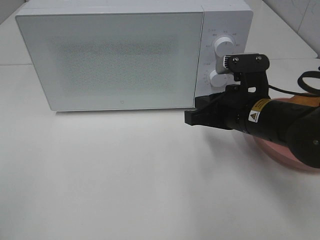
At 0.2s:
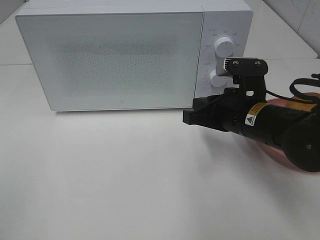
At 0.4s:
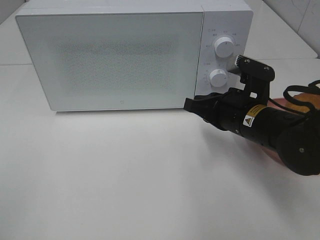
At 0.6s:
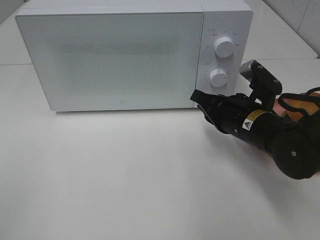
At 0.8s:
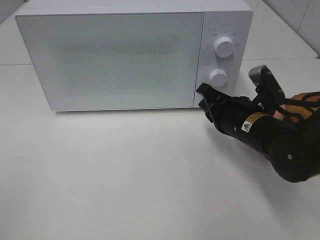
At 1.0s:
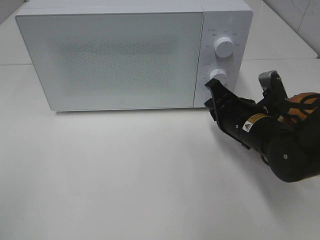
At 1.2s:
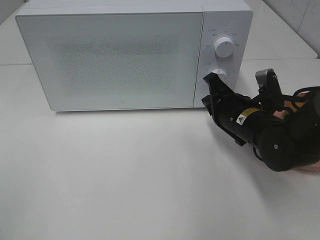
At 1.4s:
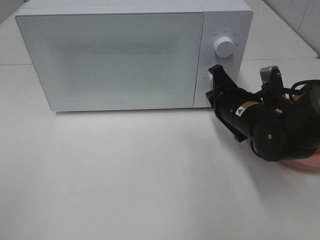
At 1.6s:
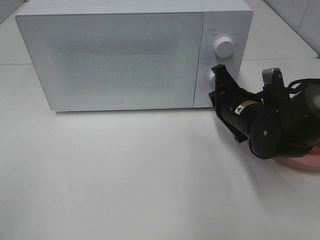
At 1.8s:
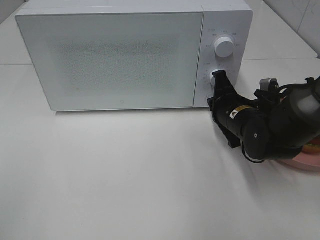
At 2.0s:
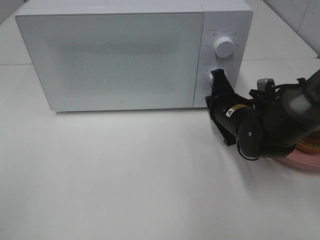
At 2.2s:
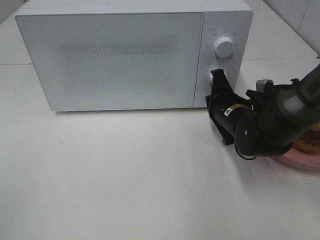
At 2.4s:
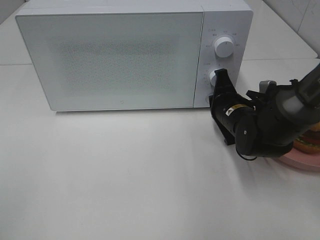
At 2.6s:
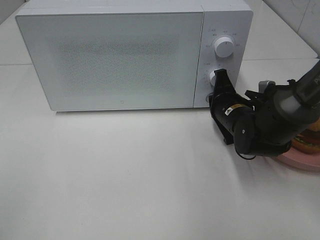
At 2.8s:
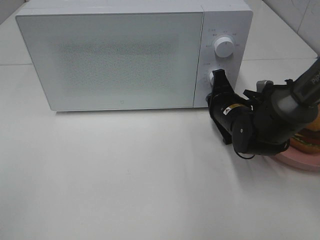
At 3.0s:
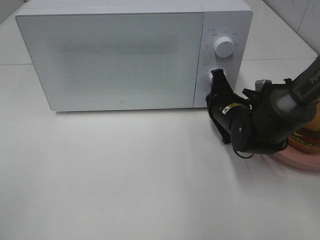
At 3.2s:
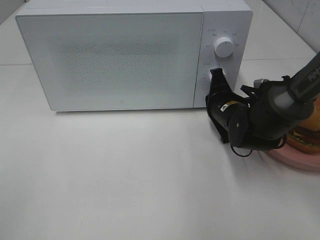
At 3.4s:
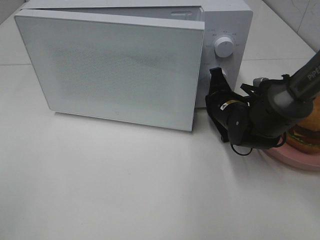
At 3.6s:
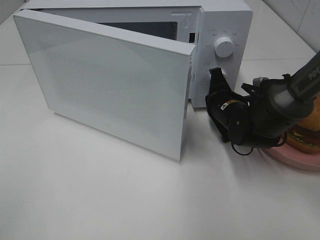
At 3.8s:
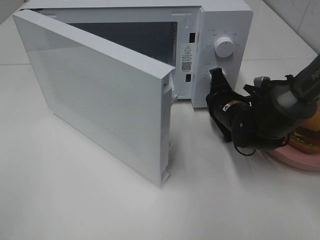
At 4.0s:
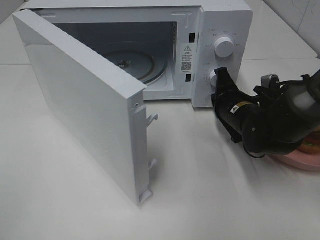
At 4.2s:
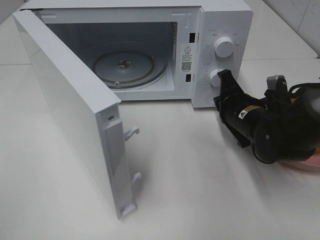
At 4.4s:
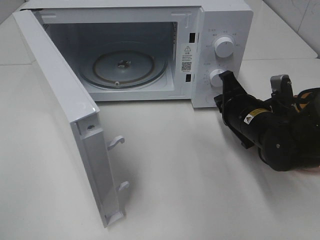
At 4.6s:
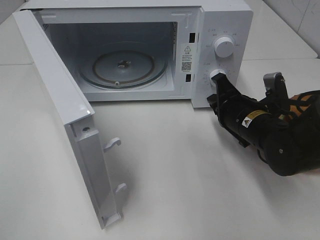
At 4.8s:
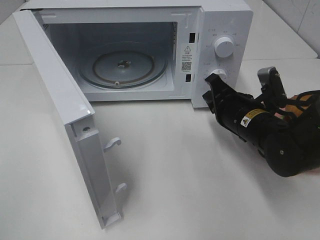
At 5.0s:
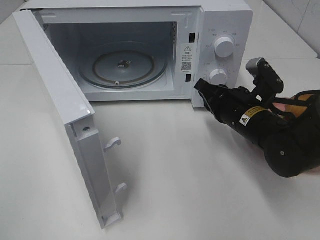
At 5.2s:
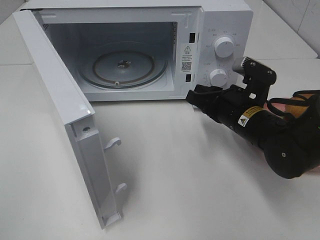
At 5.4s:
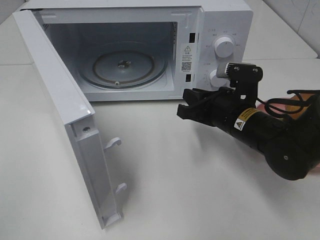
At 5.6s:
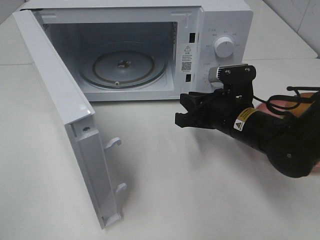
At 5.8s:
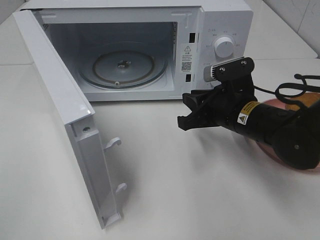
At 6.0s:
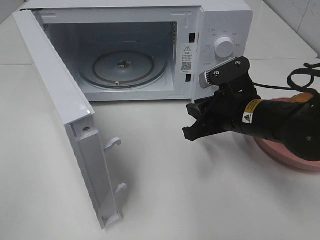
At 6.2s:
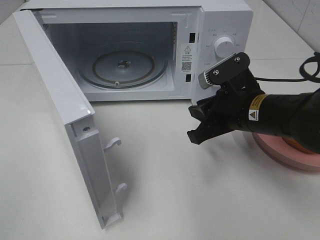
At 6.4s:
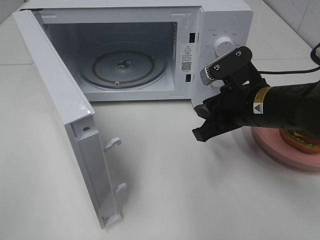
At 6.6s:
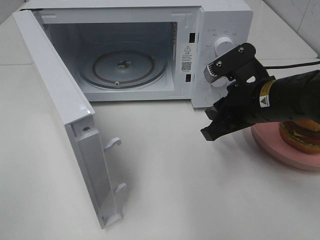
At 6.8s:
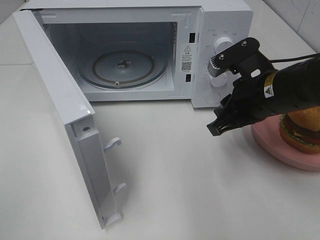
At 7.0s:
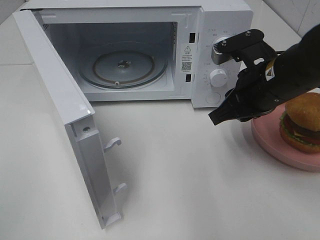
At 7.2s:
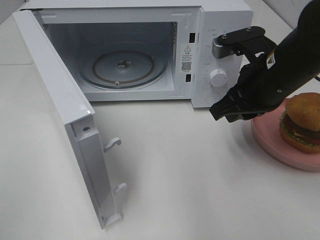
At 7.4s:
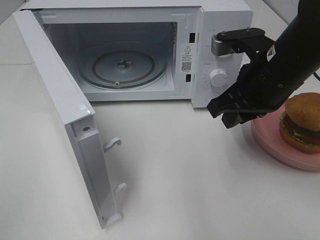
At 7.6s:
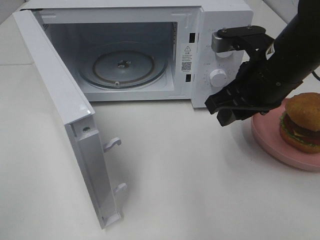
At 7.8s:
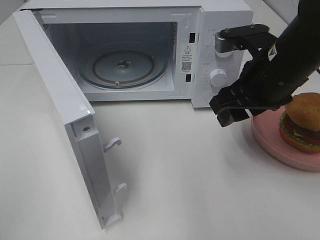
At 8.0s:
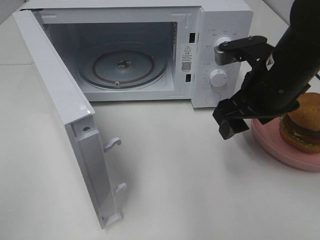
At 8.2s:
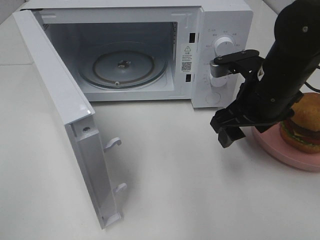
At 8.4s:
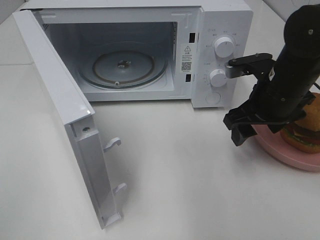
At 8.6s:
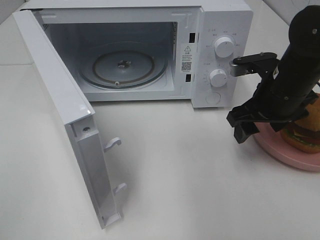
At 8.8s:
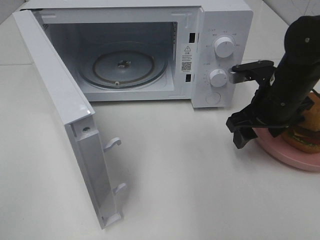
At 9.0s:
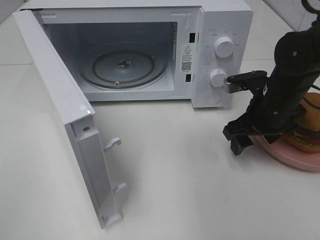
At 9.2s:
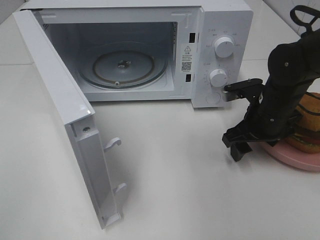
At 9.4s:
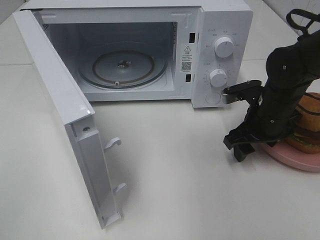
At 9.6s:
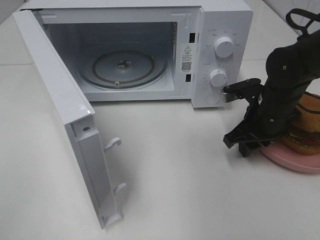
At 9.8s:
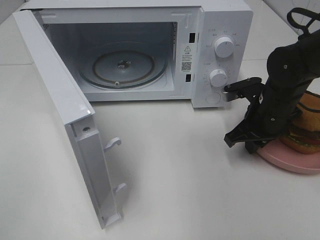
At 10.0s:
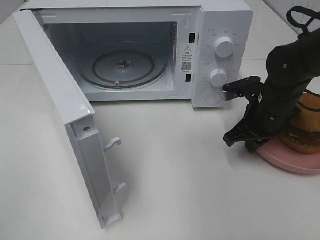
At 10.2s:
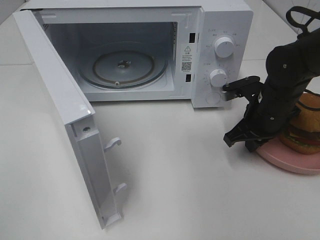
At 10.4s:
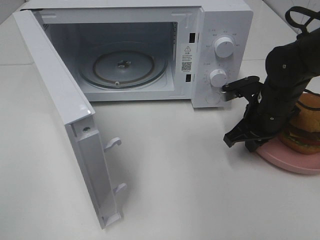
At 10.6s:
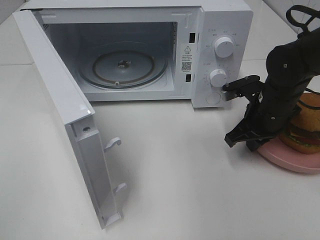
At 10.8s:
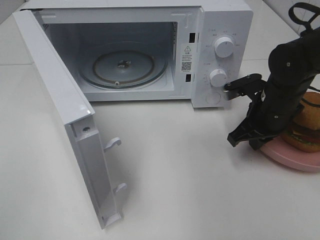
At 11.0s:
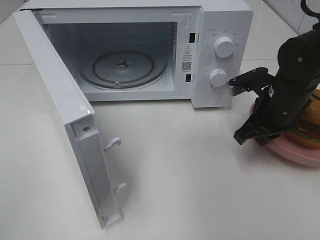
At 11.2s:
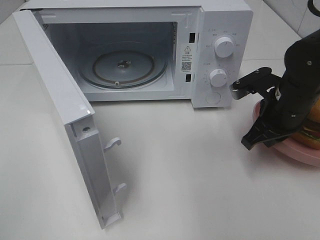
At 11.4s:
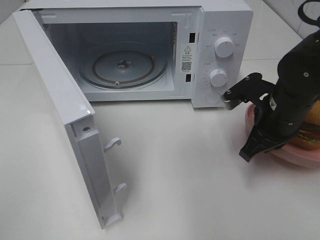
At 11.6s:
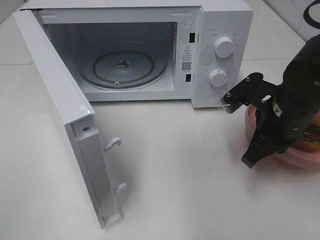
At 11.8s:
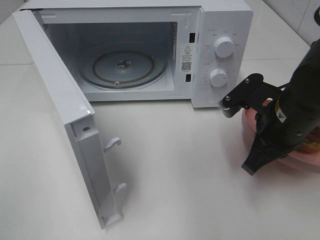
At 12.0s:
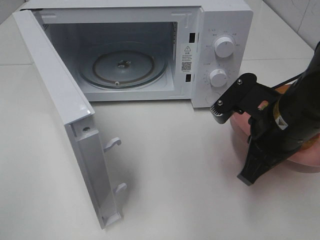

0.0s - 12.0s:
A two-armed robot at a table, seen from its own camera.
Task of the whole recording: Heat the burger.
Step, 0.0s - 4.0s: Right hand: press the switch.
Step, 4.2s - 9.8s: Right hand: grab the plate with the hamburger.
0.0s - 1.6s: The right gripper moves forward, some 5 cm.
1.6s - 3.0s: The grippers stay close to where they were, moving slightly.
3.0s - 4.4s: The right gripper shifts by approximately 5 cm.
4.4s - 6.0s: The right gripper shifts by roughly 5 cm.
6.0s - 7.6s: The right gripper goes roughly 10 cm upward.
7.6s - 9.0s: The right gripper shifts roughly 10 cm downward, and opens up.
9.0s - 10.4s: The right gripper closes up.
10.4s - 12.0s: The right gripper moves backward and upward, about 15 cm.

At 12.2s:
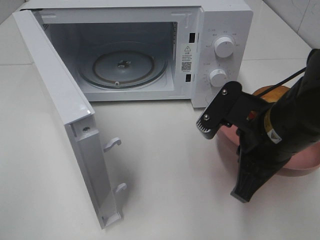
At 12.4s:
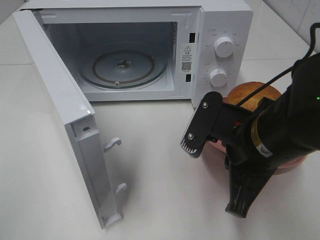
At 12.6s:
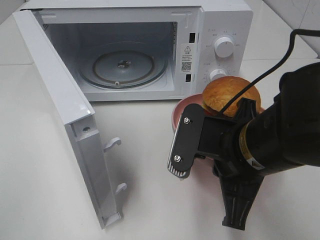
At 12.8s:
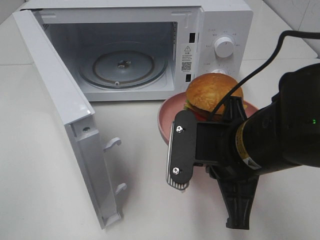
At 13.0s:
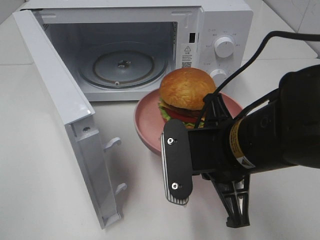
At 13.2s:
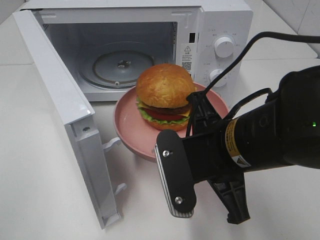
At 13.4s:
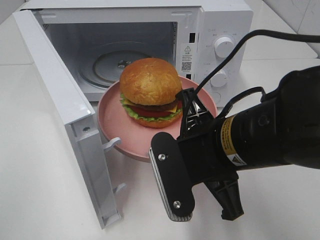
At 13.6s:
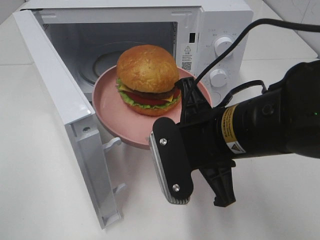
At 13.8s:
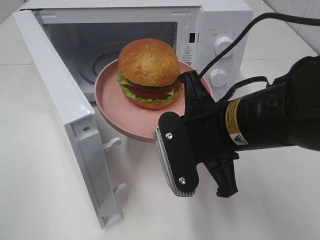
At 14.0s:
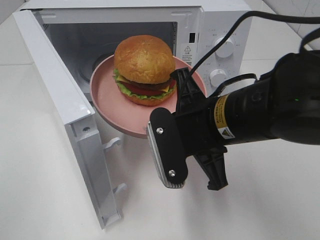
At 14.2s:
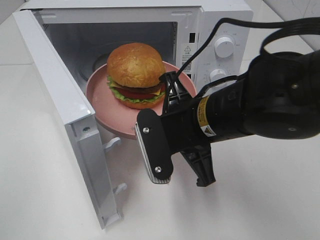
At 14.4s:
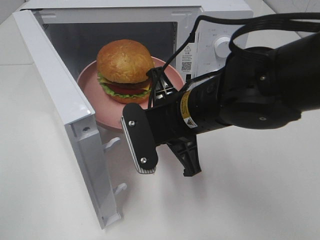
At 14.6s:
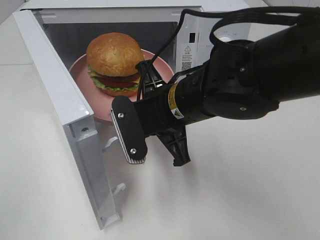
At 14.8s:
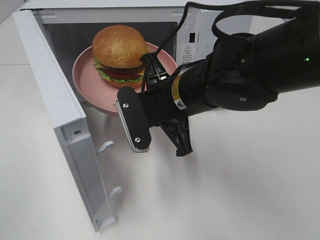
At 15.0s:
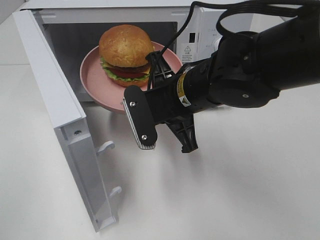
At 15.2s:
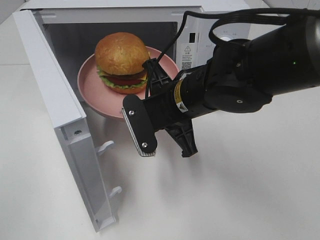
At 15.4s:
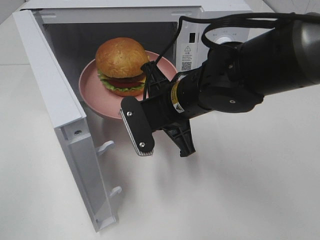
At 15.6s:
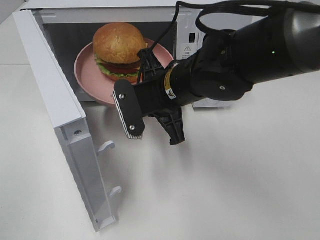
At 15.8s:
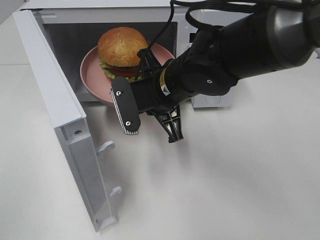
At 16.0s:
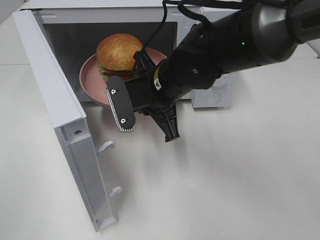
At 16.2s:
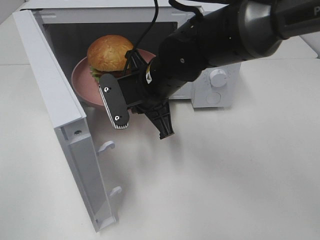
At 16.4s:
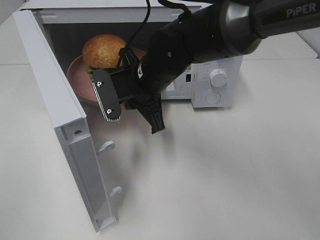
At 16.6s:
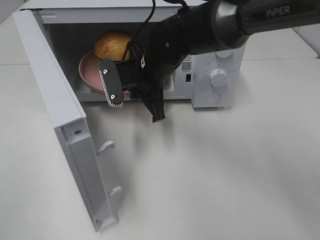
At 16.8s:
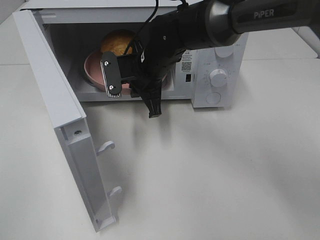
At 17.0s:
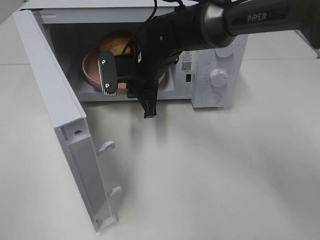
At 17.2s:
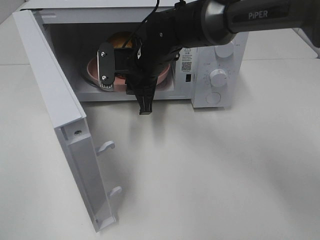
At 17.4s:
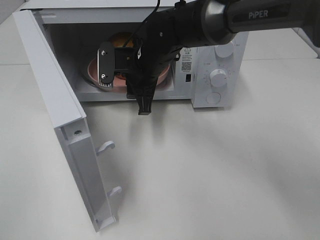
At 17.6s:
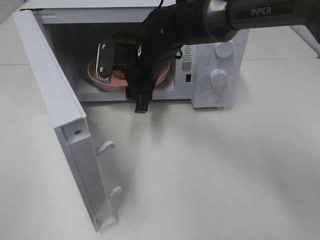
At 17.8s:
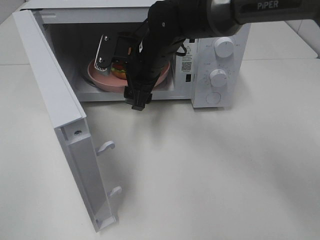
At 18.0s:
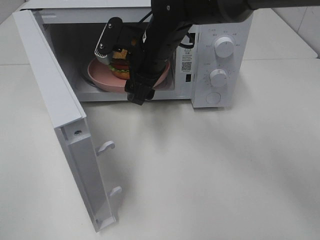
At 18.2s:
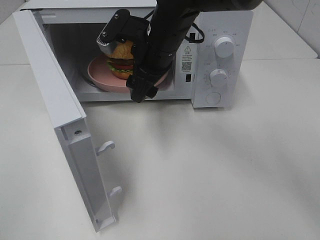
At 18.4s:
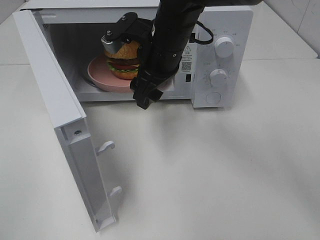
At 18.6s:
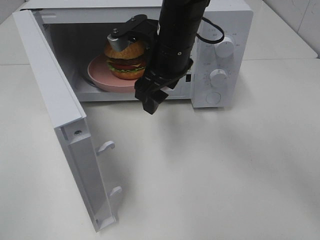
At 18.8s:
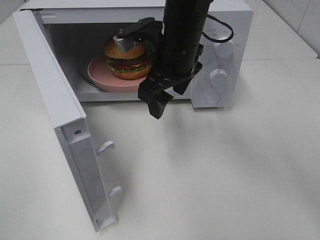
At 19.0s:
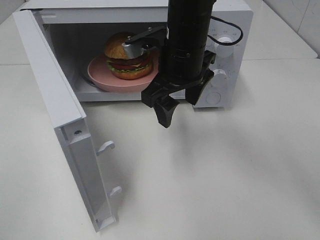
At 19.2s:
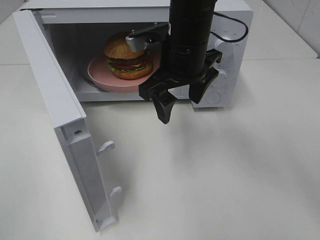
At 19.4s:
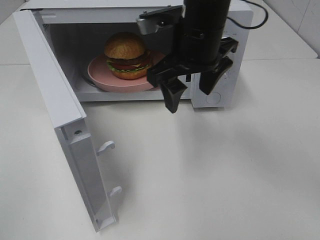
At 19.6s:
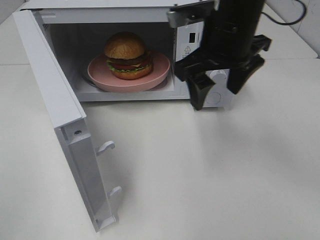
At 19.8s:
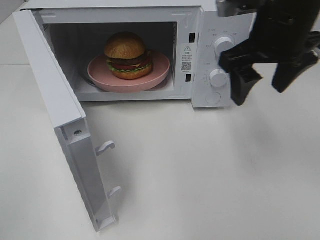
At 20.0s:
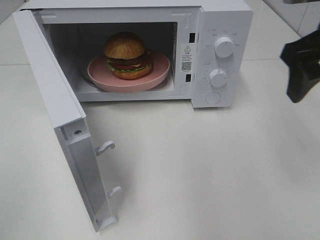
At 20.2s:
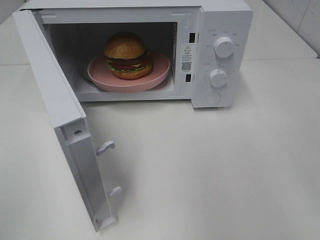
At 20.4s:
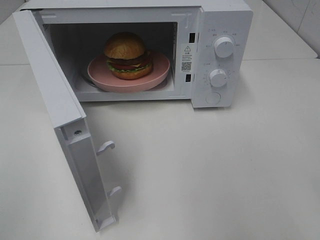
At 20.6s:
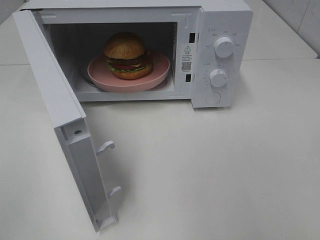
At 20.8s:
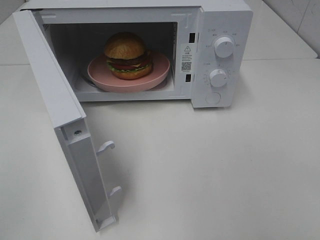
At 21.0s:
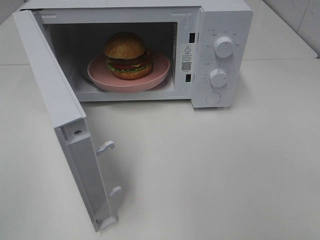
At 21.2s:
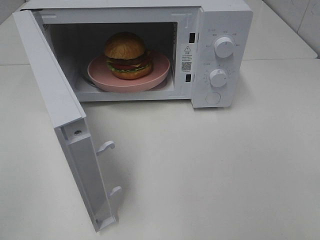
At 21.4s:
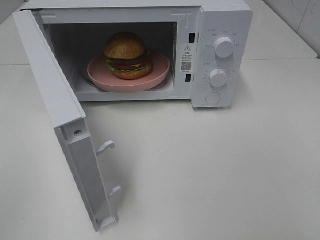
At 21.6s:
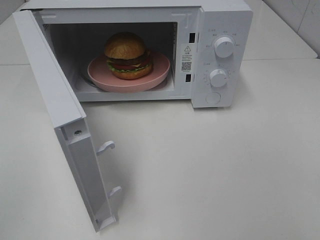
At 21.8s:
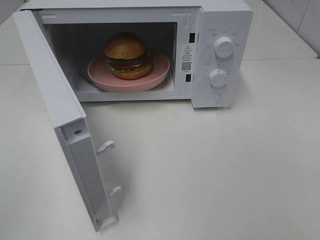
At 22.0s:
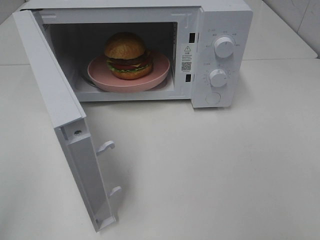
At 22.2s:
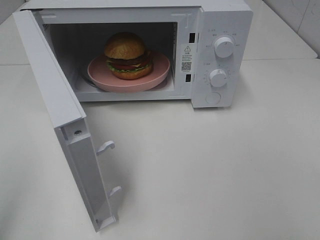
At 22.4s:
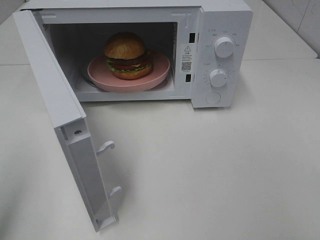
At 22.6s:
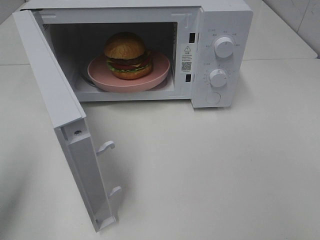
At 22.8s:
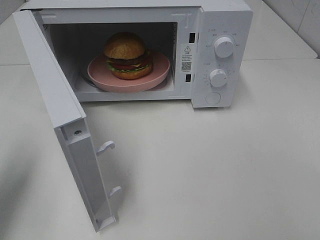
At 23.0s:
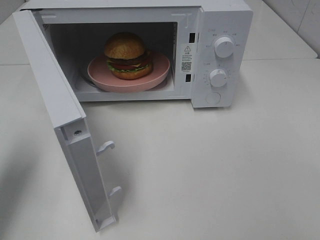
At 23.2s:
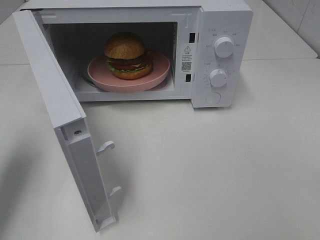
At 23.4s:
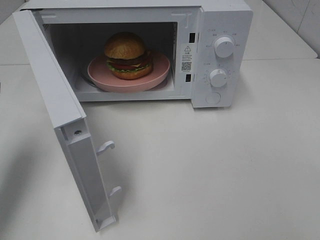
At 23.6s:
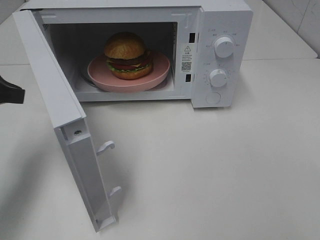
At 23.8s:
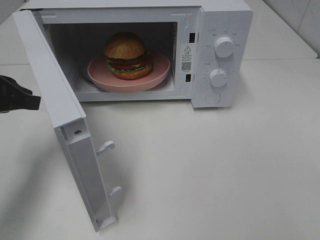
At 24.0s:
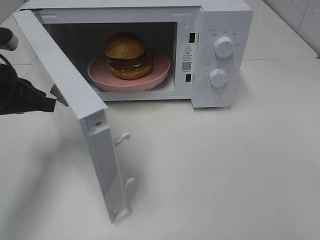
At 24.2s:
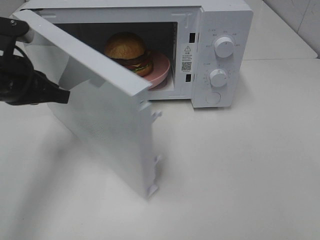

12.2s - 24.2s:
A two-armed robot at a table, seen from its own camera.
Task of the whole recording: Heat the burger.
Step, 12.2s - 17.4s: Right hand: place the plate in the microwave.
12.2s - 13.8s: The right gripper goes approximately 5 cm to the left.
13.8s - 15.2s: The right gripper travels forward by approximately 10 cm.
15.2s - 16.6s: The right gripper heads forward, covering about 10 cm.
16.6s - 18.2s: The right gripper shifts roughly 5 cm upward, and opens its fingers.
18.2s - 19.8s: The right gripper moves to the right and upward, about 20 cm.
19.8s - 21.2s: The right gripper shifts some 30 cm backward and to the right.
21.2s - 22.6s: The left gripper moves forward, some 10 cm.
22.6s - 24.2s: The left gripper heads forward, to the right and downward, covering about 20 cm.
